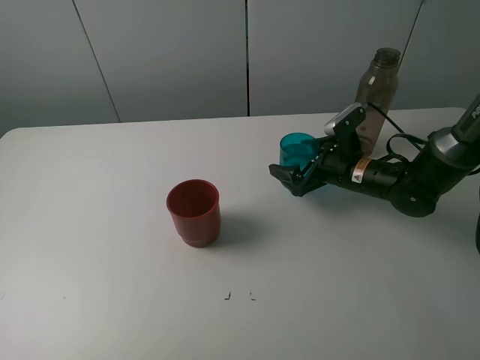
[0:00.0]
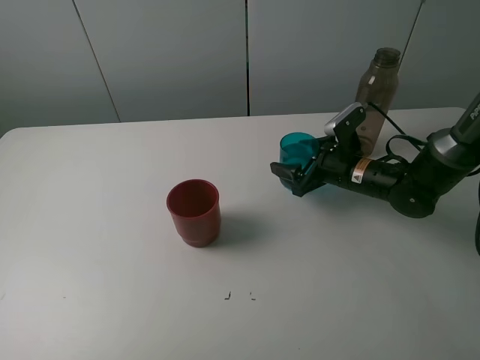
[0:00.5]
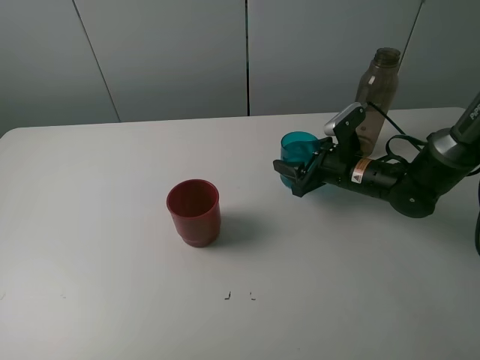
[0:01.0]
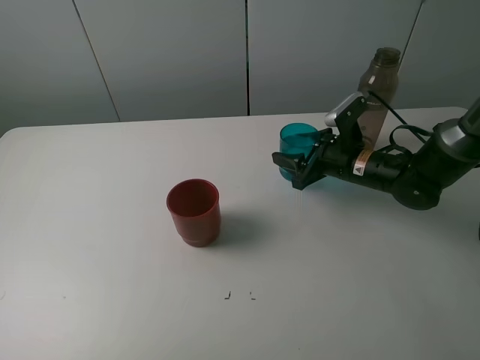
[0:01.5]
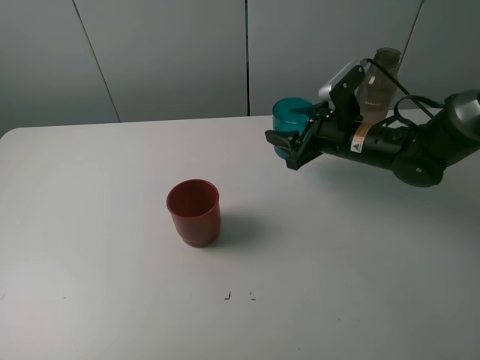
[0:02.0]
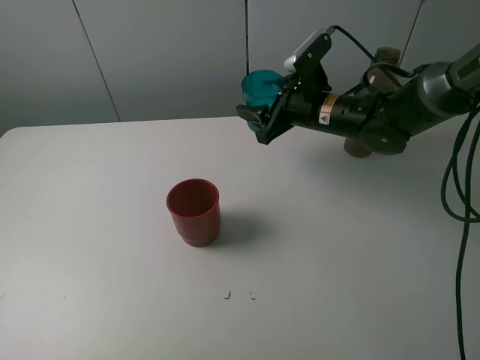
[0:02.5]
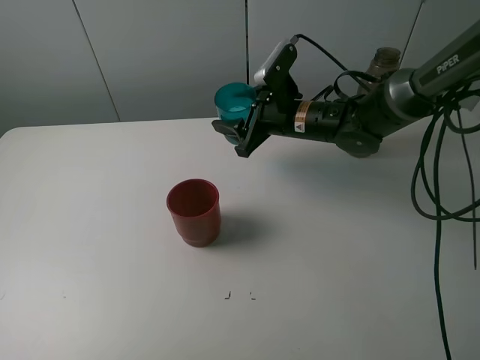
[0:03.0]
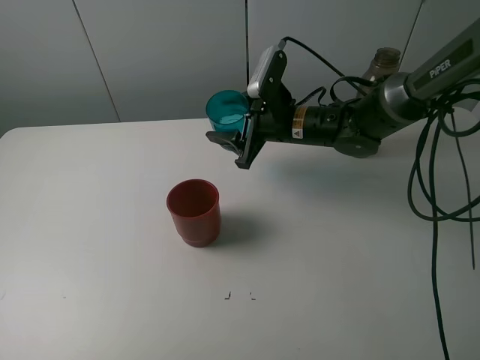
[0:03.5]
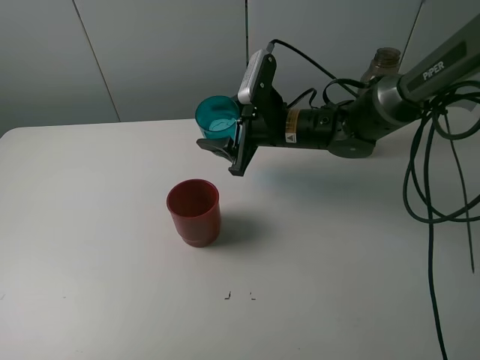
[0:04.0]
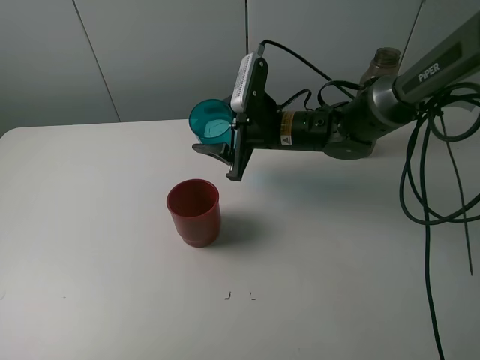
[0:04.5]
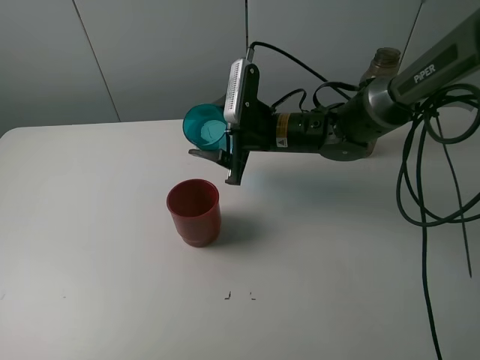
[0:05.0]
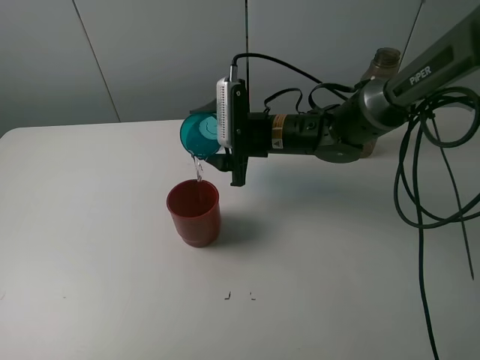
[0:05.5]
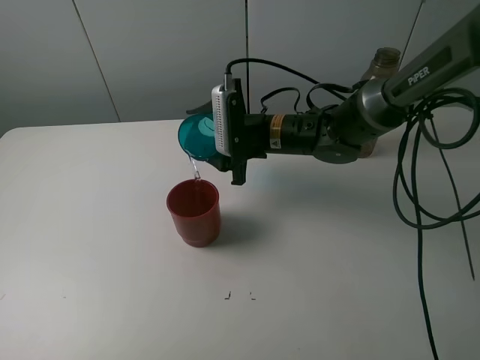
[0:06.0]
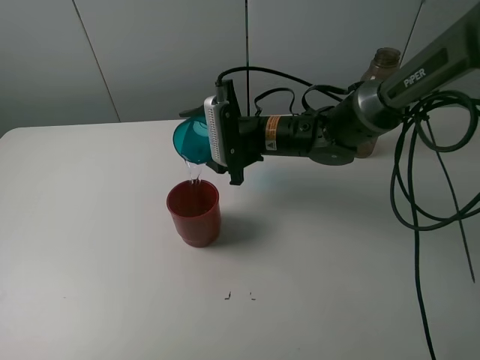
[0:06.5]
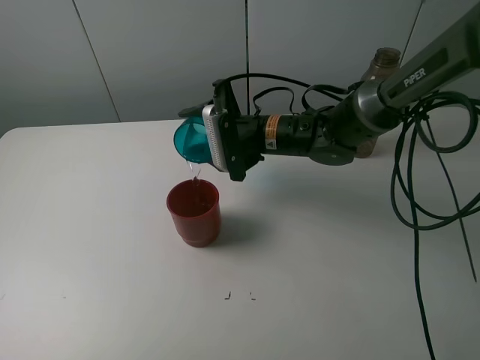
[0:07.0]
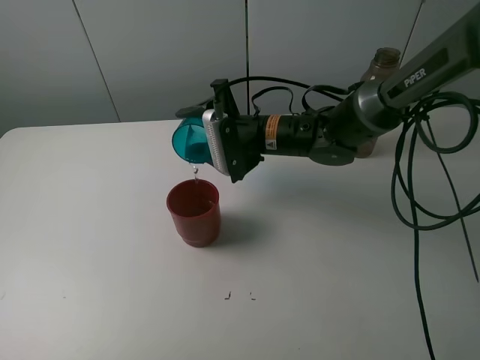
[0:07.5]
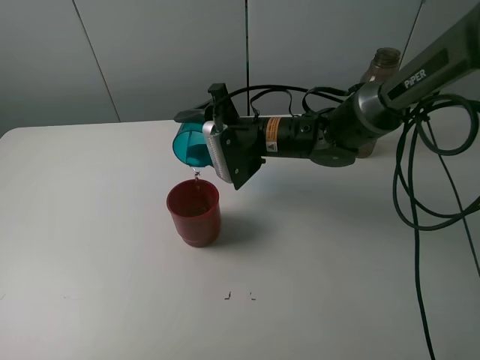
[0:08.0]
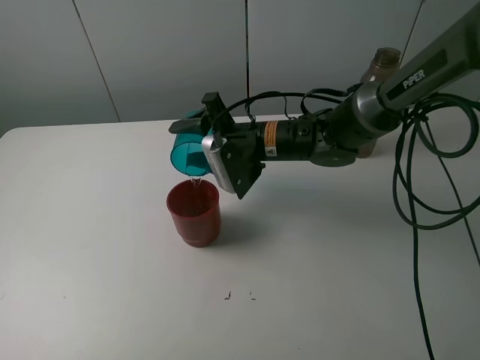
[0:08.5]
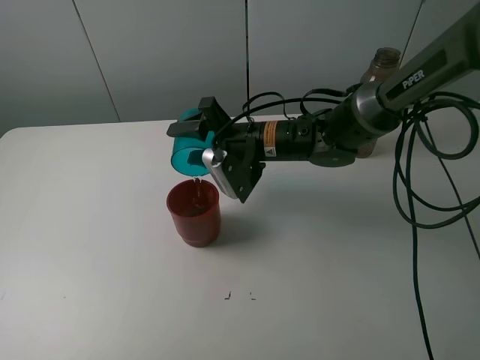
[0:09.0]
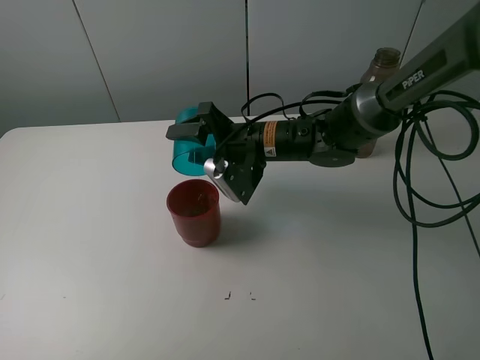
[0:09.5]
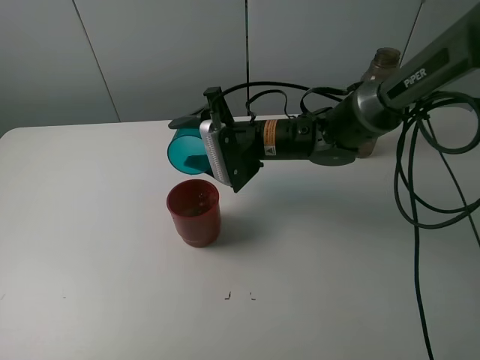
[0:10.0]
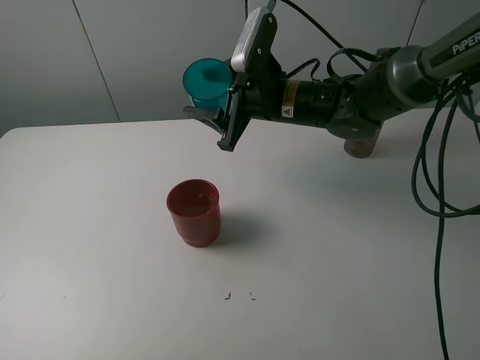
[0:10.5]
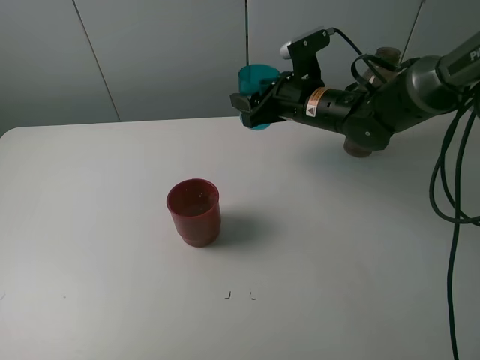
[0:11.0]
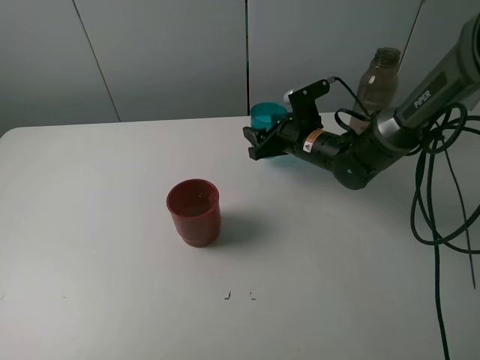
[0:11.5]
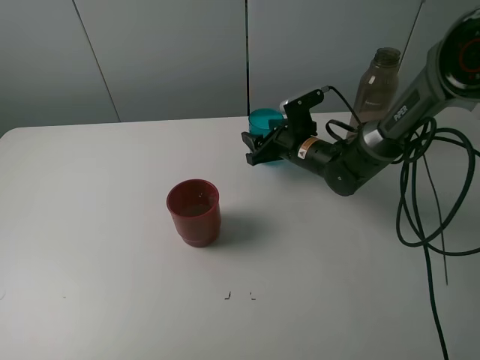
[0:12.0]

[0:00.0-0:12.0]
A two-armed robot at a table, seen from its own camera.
Task of the whole recording: pick up the bottle and pour water into the cup, then pick up the cup containing water and pour it into another cup.
Step, 0:01.0 to 0:09.0: Pour water from blue cup to red cup with the right gripper.
0:00.0 to 0:02.0: The right gripper moves upward, some 5 cm, and closes up.
0:02.0 to 0:04.0: The right gripper goes some 10 cm to the left.
0:10.0 to 0:12.0: The right gripper heads downward, to the right and forward, covering approximately 15 cm.

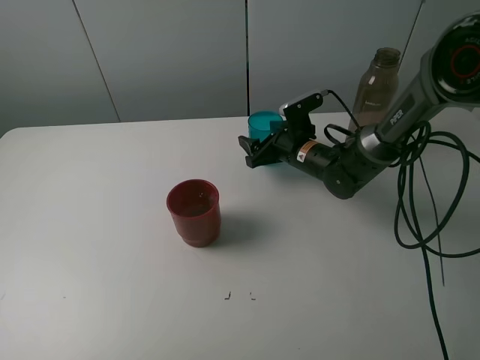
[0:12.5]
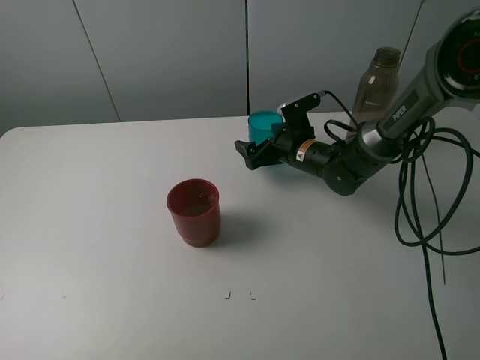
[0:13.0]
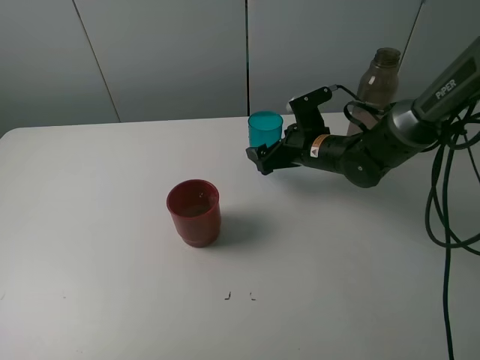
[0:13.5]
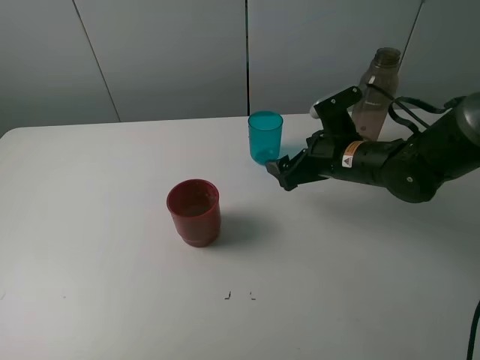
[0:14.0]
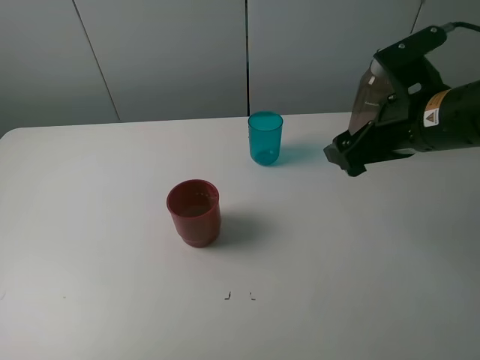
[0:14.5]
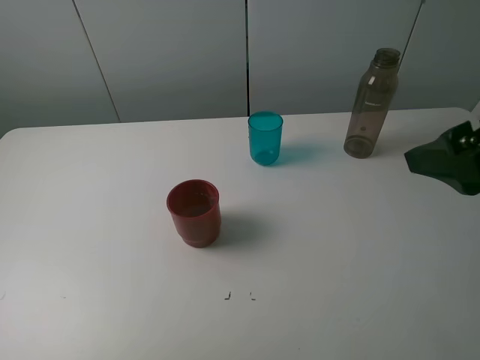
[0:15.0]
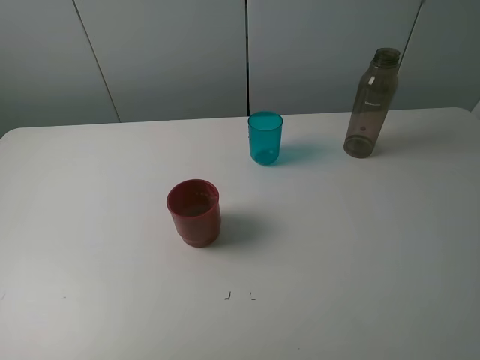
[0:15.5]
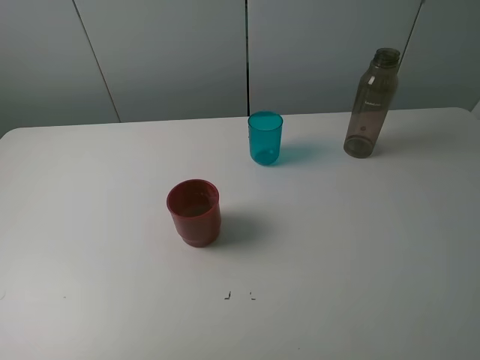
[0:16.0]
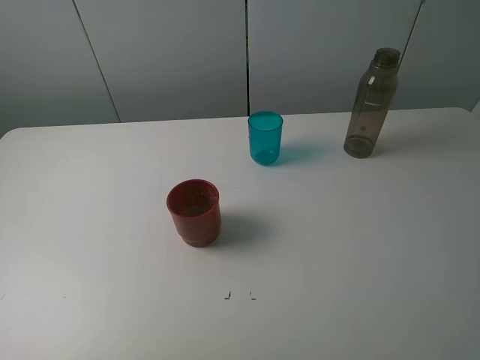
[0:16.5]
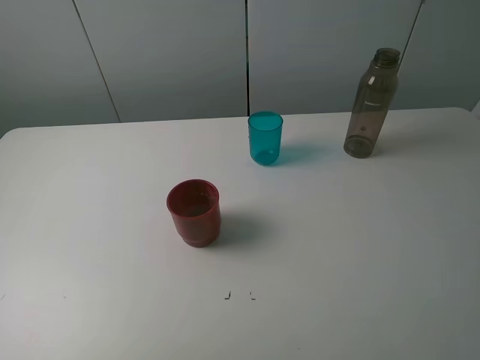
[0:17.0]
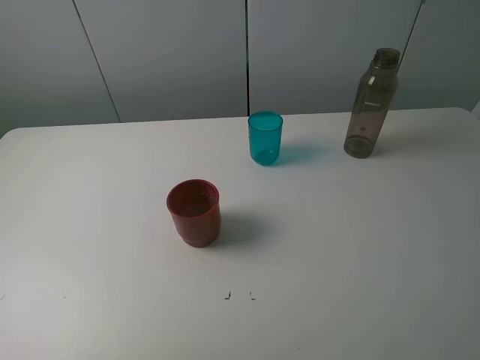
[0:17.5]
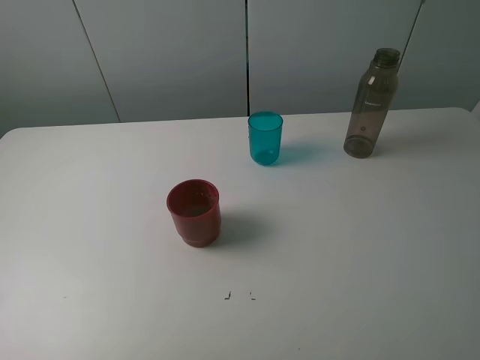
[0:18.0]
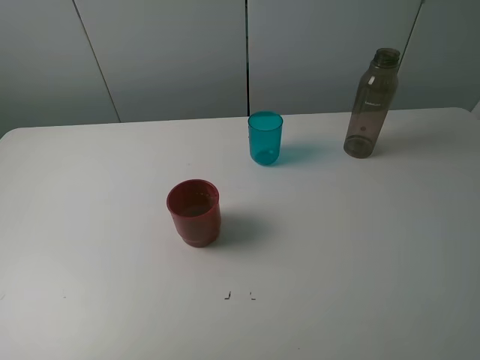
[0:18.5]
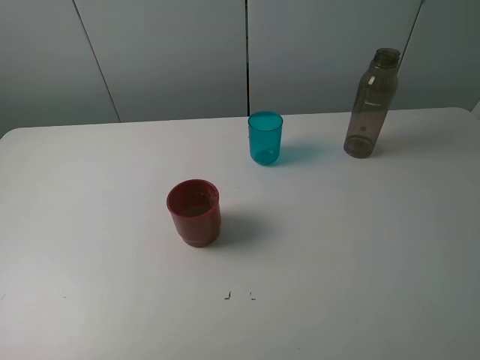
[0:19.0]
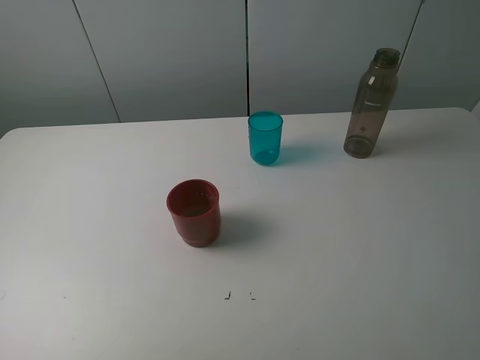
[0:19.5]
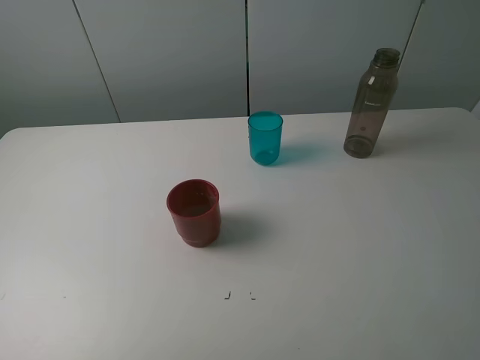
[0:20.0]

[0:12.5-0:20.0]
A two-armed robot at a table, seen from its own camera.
Task of the whole recording: pick up the bottle and pour water into the cup, then pick up the cup containing water and pour it into another cup.
0:12.5 to 0:14.5: The right gripper heads upward, backward and to the right, covering approximately 25 cm, and opens.
0:14.5 to 0:16.5: The right gripper is displaced backward by some 25 cm.
0:18.0 to 0:20.0: Both grippers stay put.
